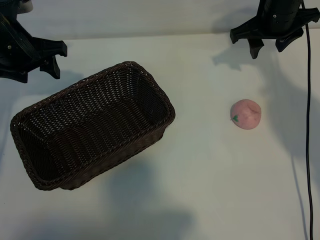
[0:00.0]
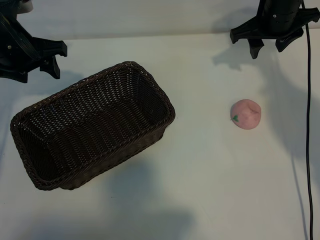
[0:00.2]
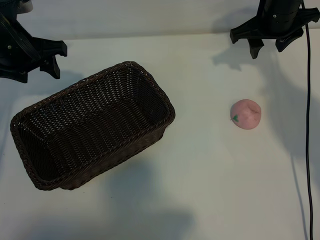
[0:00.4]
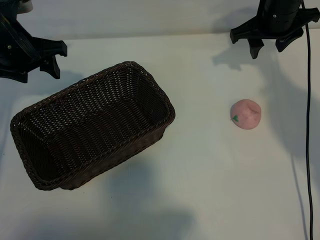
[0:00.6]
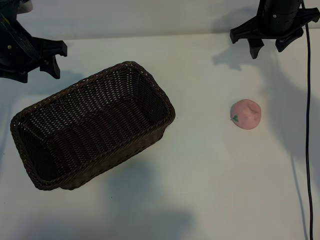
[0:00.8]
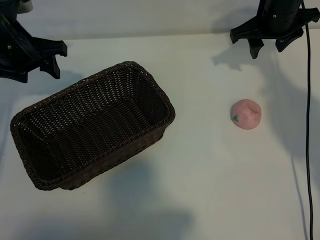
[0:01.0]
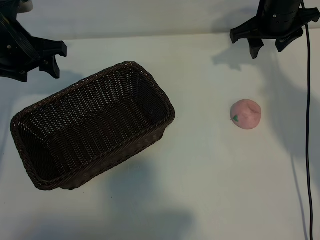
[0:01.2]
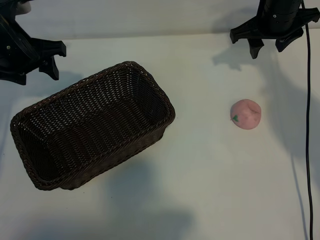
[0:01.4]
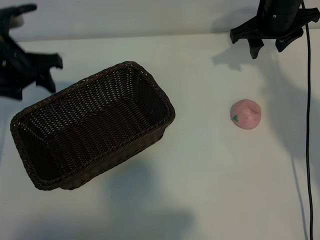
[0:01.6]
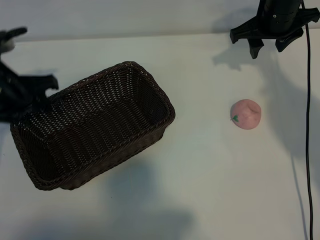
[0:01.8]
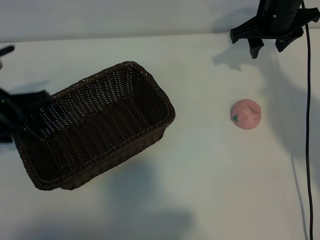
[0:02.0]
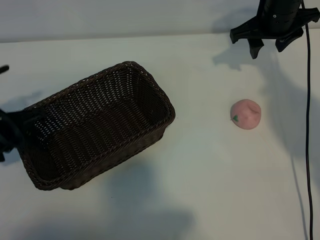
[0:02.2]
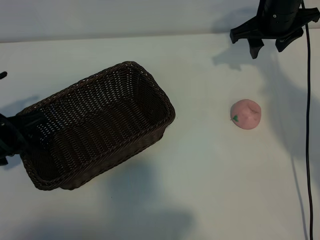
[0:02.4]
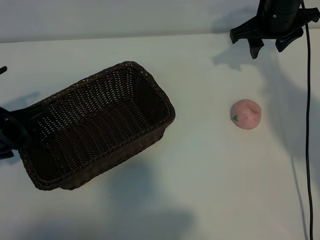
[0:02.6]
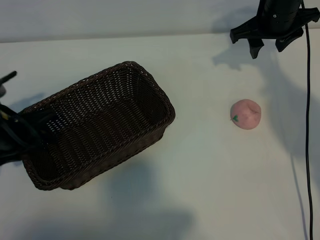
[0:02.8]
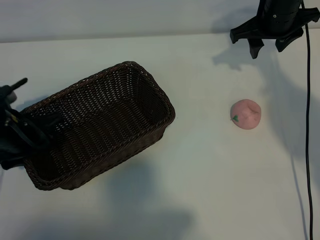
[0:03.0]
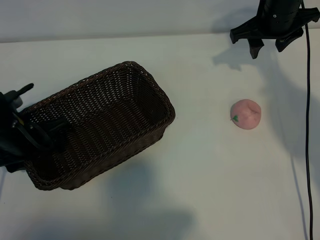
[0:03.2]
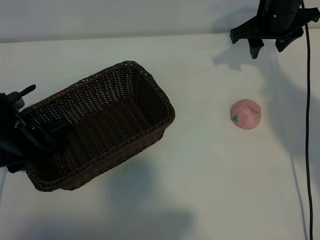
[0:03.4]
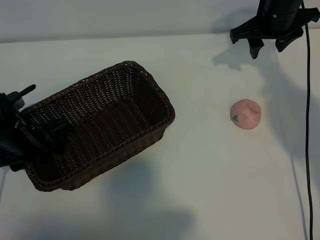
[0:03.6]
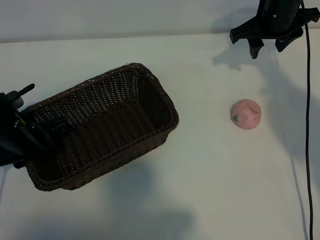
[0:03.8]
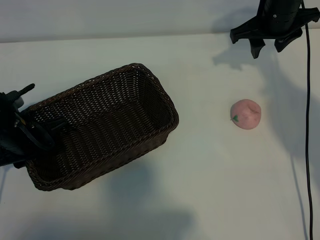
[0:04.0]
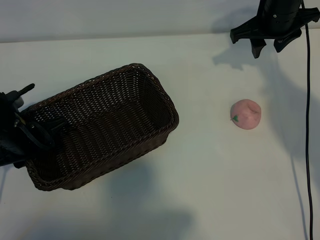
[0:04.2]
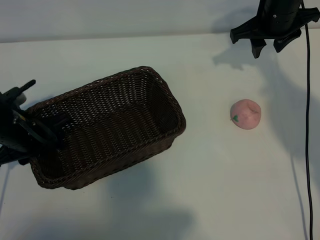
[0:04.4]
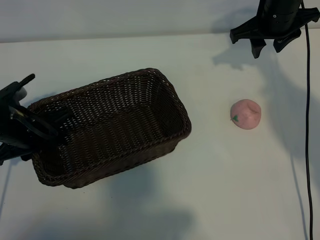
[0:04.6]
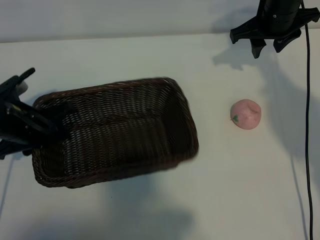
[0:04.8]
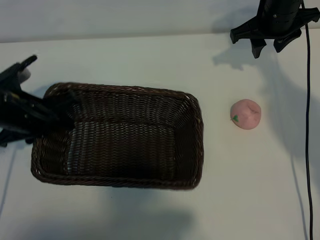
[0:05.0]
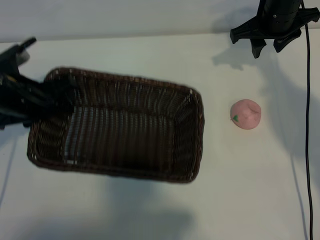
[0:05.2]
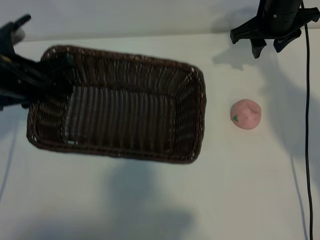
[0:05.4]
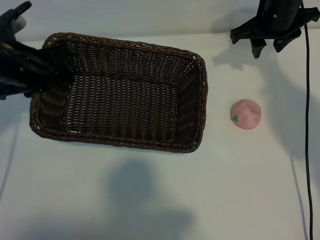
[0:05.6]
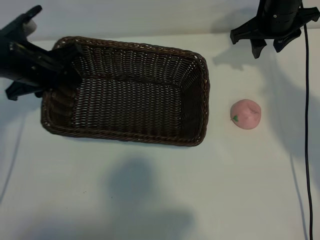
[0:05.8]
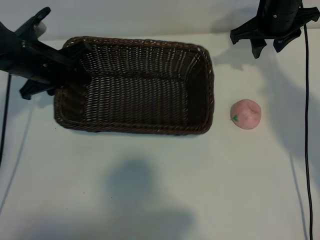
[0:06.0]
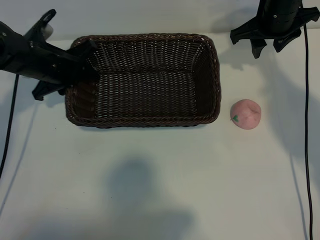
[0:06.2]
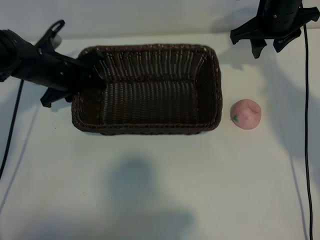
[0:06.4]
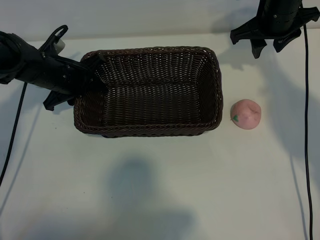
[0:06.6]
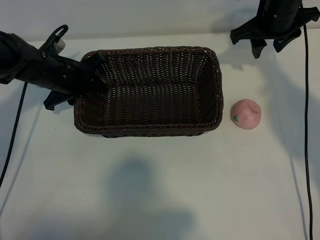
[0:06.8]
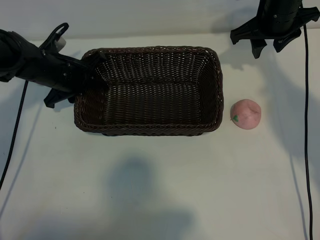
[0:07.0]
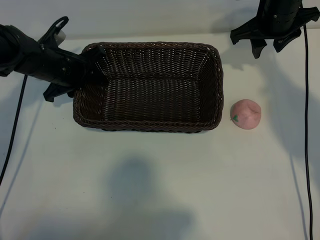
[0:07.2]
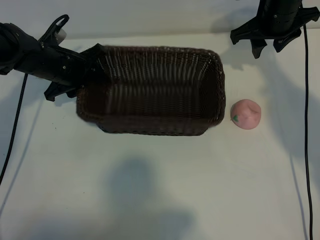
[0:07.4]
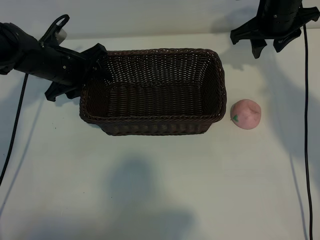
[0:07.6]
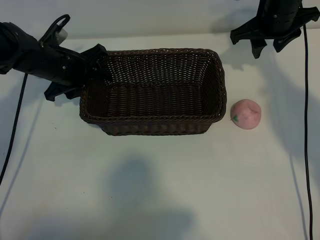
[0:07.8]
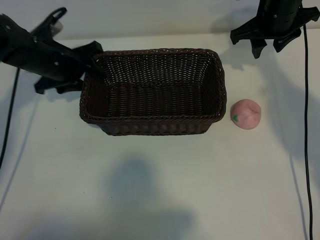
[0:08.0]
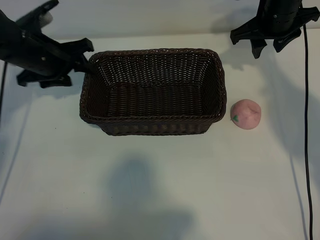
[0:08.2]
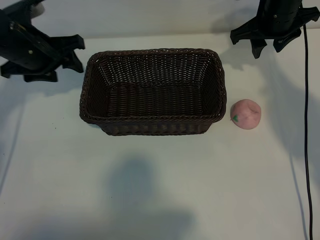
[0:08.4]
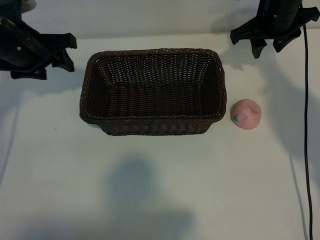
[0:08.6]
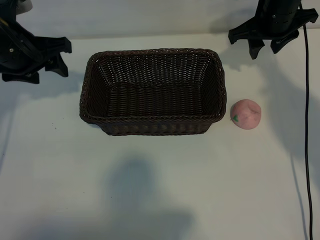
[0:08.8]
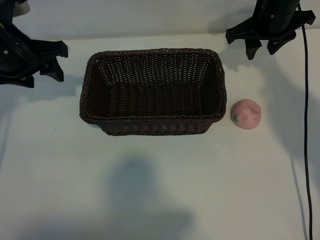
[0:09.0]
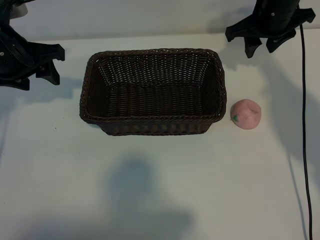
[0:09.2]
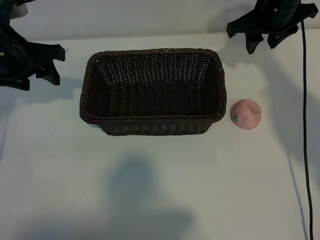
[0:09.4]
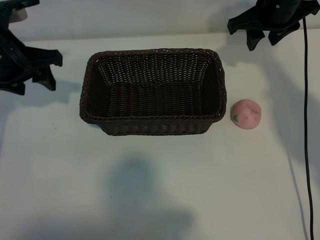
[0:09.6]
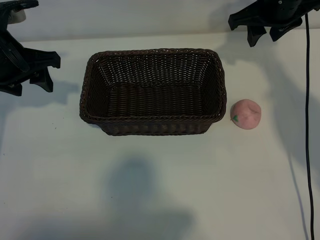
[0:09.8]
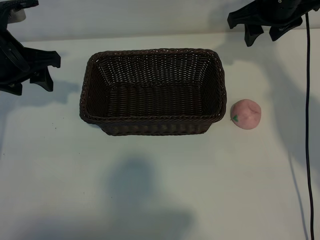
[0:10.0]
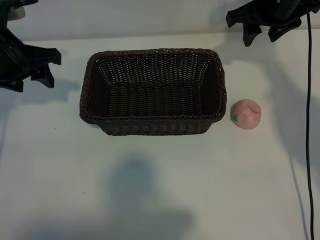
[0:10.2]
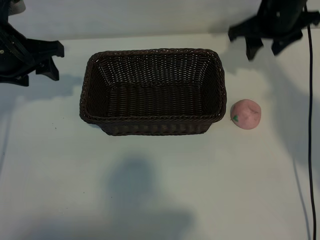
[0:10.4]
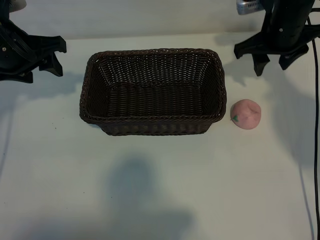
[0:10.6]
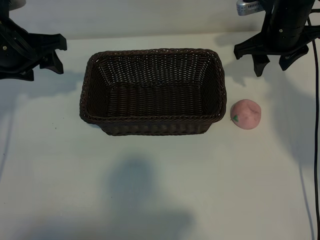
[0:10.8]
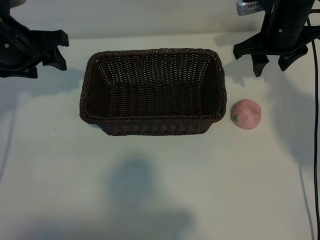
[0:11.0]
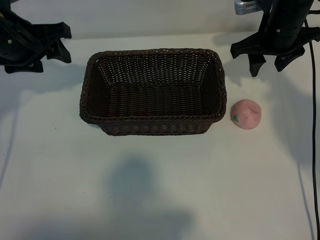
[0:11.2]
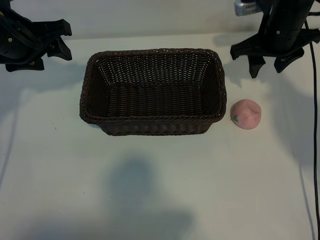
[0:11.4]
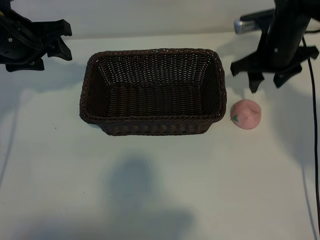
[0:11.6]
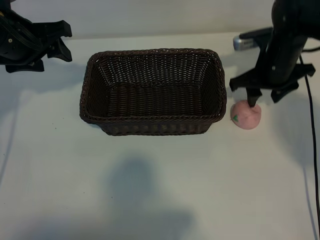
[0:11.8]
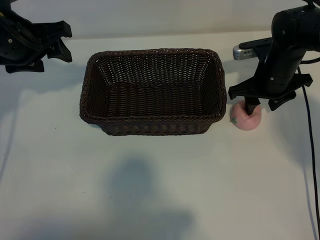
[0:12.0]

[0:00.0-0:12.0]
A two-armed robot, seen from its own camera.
Task of the whole recording: pick up the peach and put it into the basket.
Step, 0:01.2 to 0:04.0: Grasp the basket with left gripper.
Step, 0:04.2 to 0:07.6: Place the basket in the center of view with left gripper.

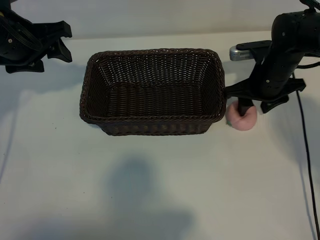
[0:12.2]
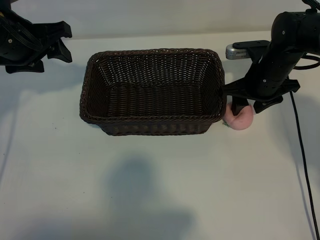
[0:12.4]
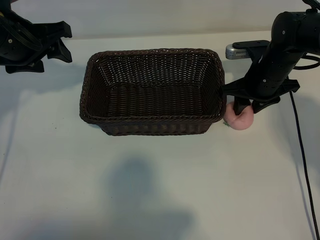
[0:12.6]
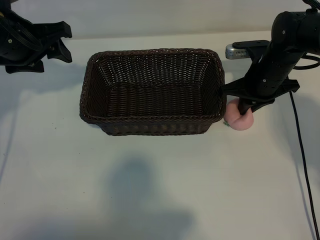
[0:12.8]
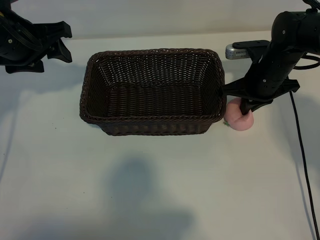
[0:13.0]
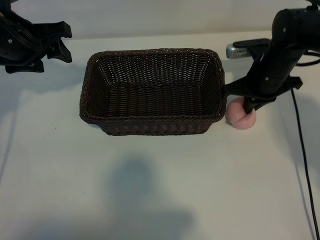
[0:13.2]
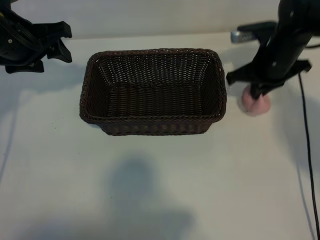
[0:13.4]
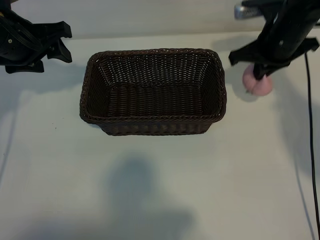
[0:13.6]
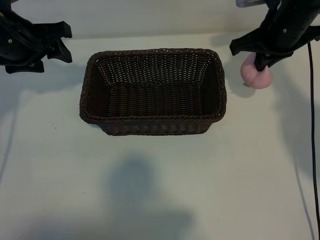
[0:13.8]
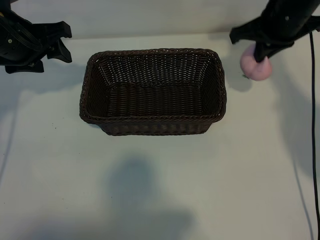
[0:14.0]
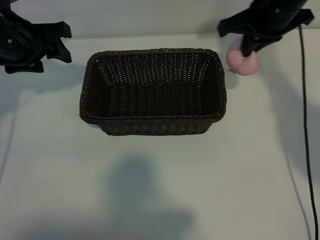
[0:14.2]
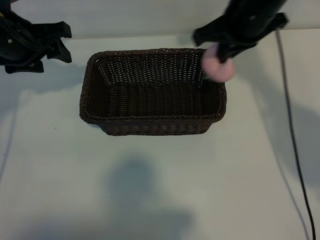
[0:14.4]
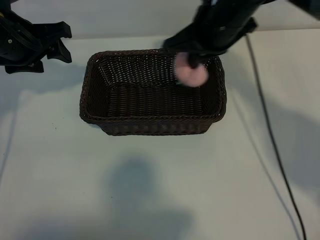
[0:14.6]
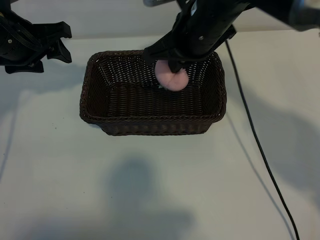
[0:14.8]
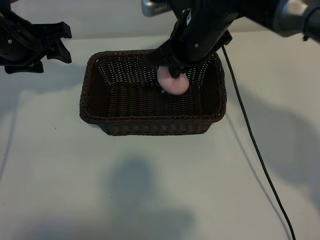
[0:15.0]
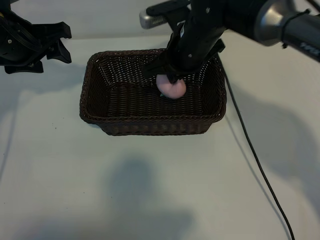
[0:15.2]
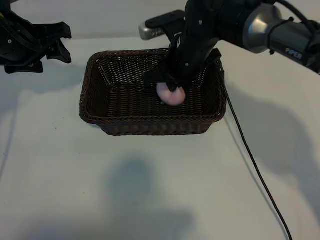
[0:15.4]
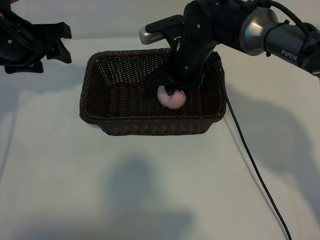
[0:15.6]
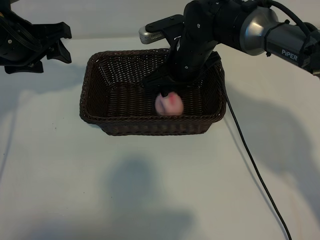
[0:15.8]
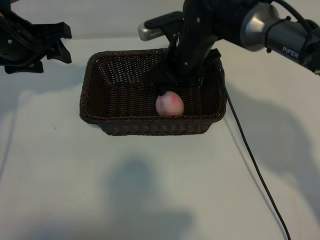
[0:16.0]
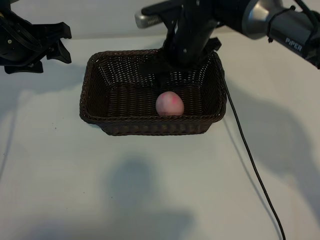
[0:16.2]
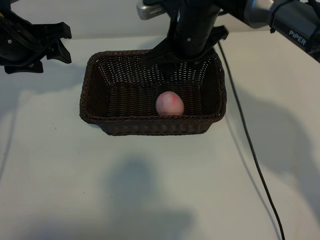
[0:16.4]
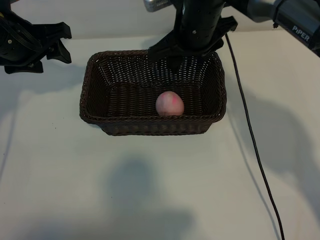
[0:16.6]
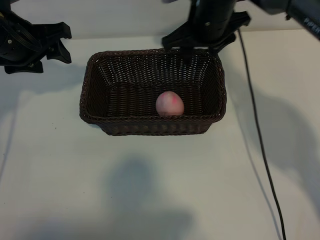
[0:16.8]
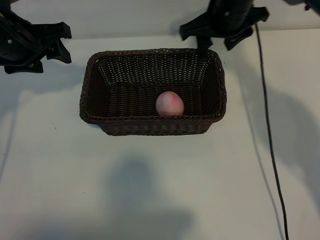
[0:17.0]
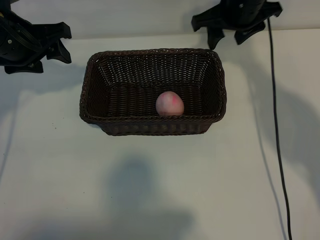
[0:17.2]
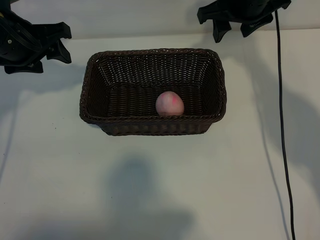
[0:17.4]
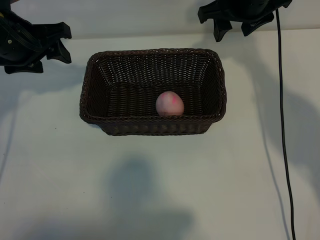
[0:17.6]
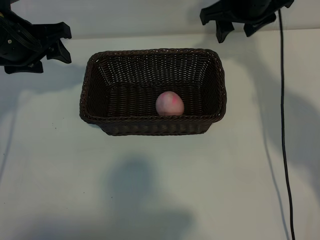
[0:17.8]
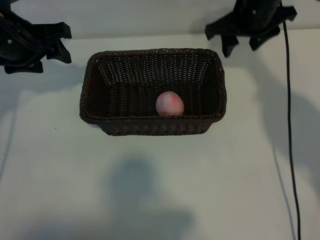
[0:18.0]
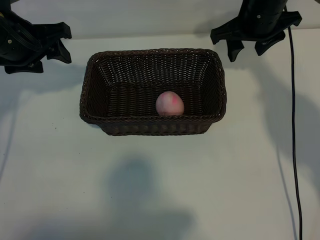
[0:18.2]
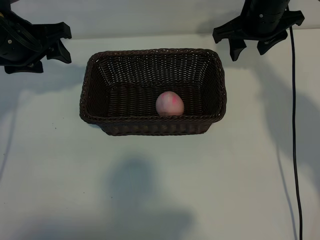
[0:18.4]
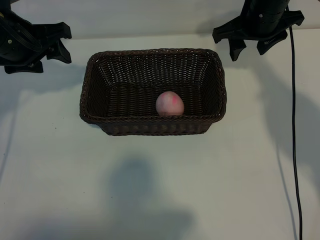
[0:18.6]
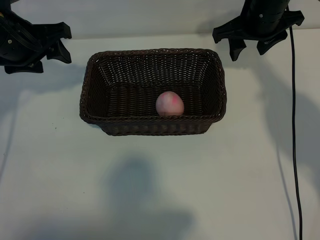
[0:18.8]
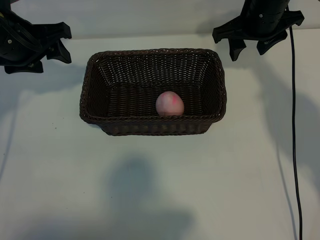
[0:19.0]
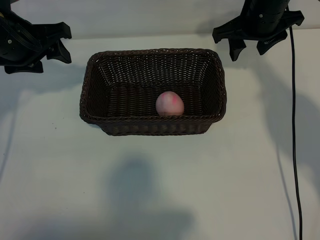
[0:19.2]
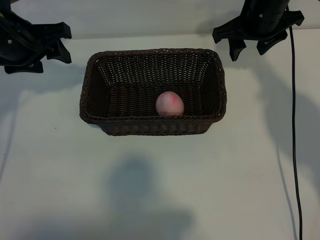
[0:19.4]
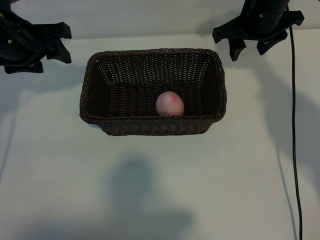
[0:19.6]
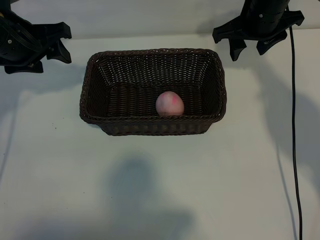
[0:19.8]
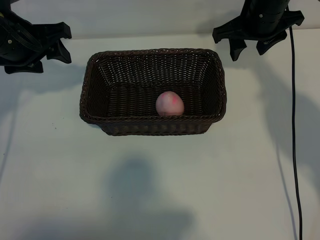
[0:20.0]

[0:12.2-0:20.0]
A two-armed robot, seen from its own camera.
Task of the whole recording: pick up the peach and put it into the basket.
Step, 0:13.4 to 0:16.0: Place the peach in the basket with right gripper.
